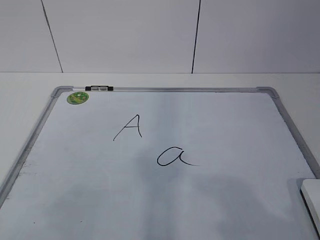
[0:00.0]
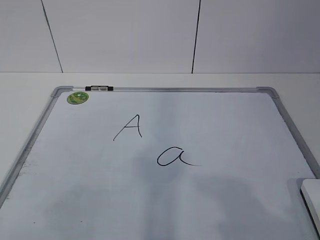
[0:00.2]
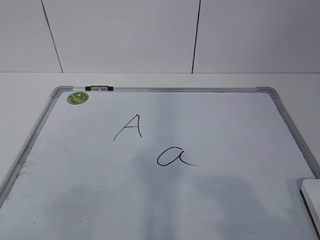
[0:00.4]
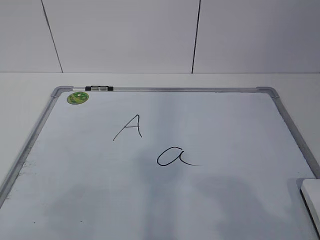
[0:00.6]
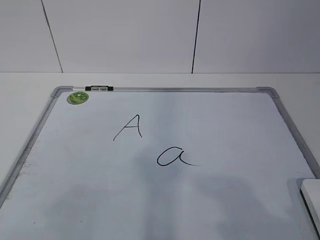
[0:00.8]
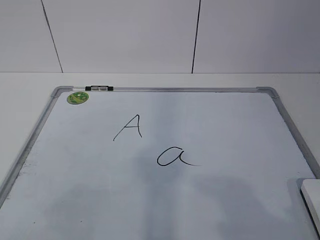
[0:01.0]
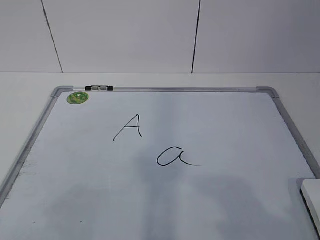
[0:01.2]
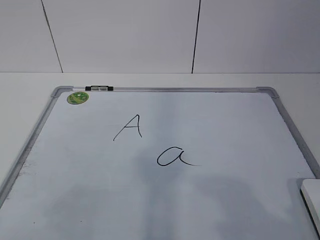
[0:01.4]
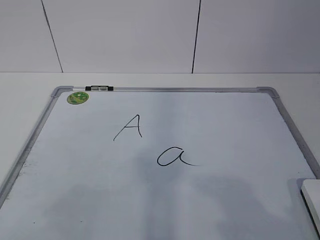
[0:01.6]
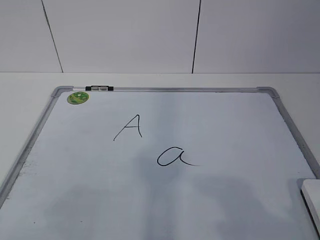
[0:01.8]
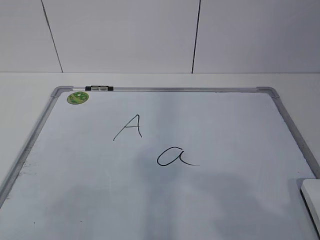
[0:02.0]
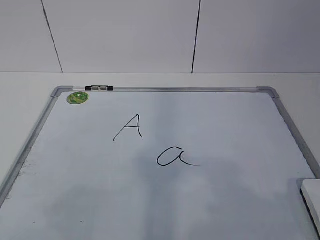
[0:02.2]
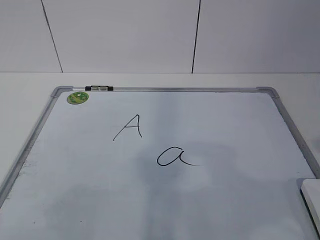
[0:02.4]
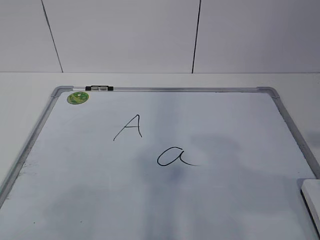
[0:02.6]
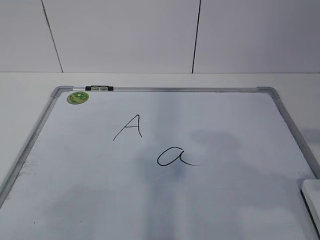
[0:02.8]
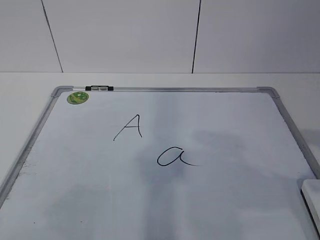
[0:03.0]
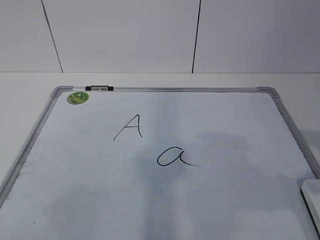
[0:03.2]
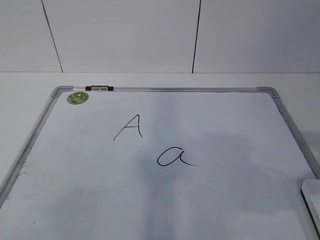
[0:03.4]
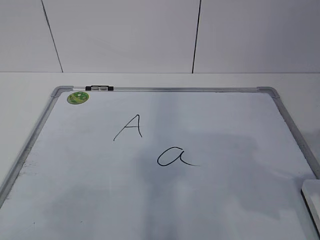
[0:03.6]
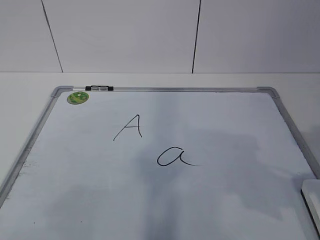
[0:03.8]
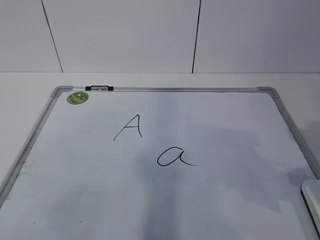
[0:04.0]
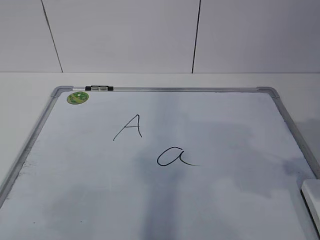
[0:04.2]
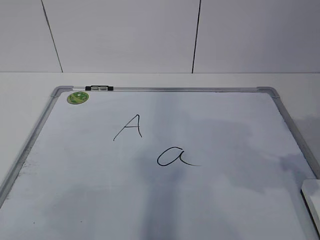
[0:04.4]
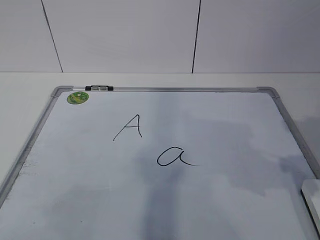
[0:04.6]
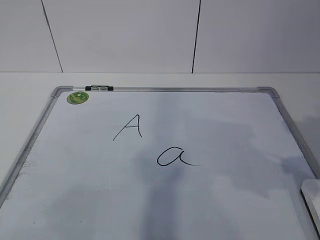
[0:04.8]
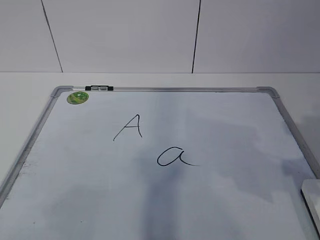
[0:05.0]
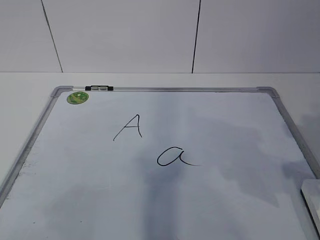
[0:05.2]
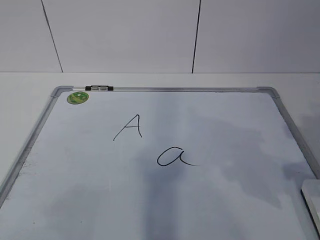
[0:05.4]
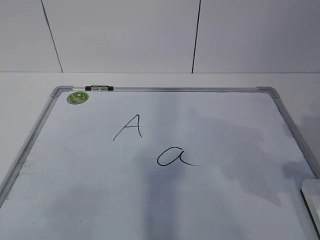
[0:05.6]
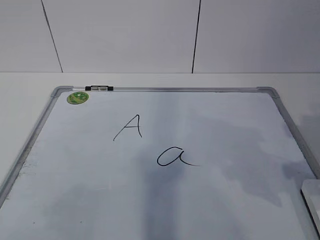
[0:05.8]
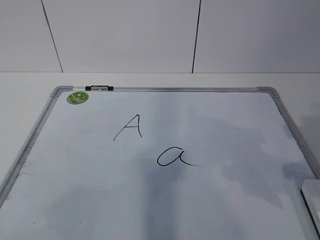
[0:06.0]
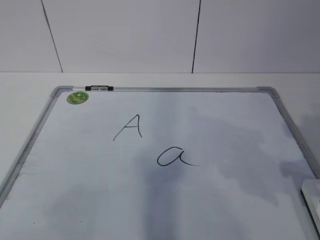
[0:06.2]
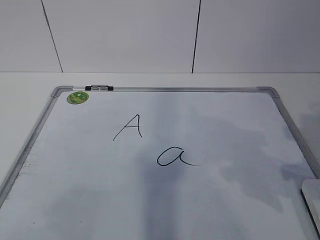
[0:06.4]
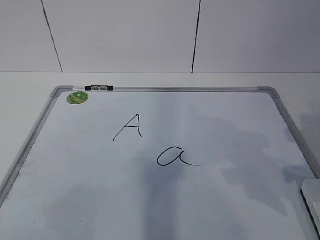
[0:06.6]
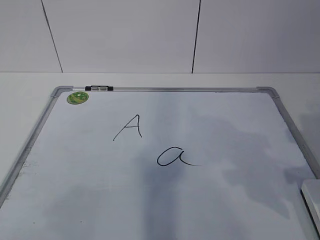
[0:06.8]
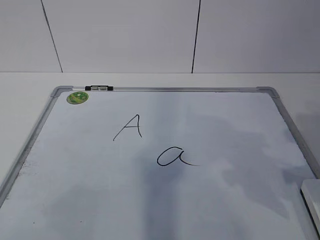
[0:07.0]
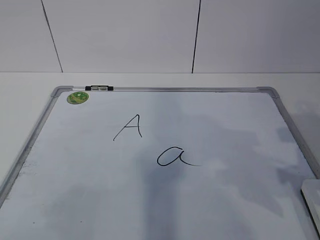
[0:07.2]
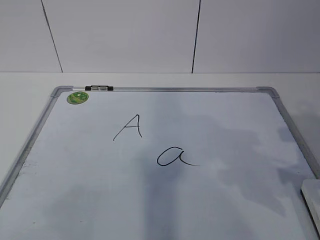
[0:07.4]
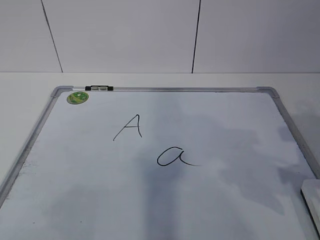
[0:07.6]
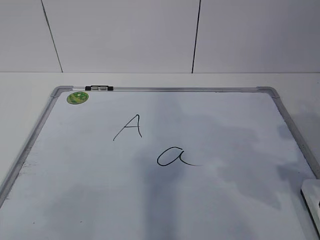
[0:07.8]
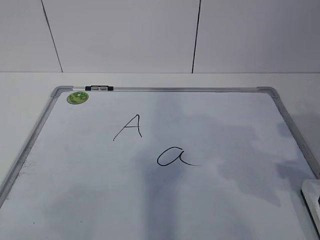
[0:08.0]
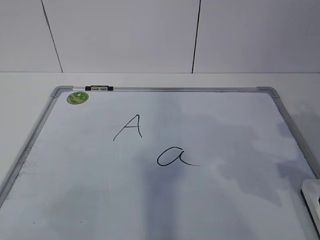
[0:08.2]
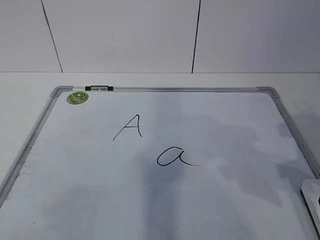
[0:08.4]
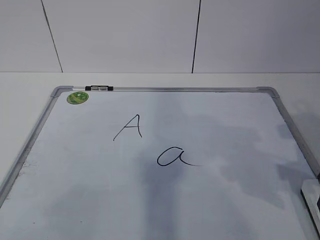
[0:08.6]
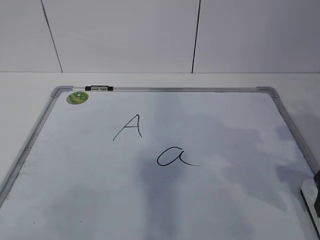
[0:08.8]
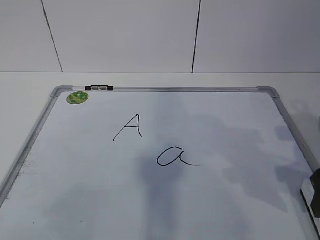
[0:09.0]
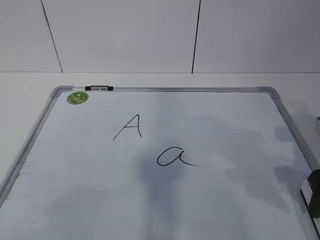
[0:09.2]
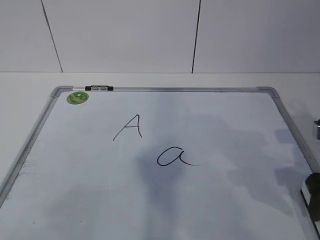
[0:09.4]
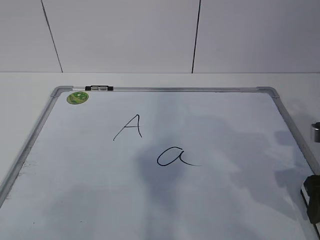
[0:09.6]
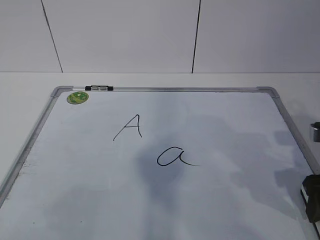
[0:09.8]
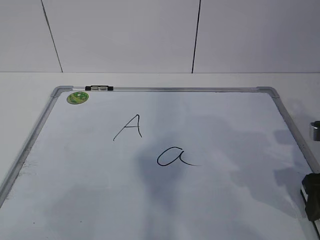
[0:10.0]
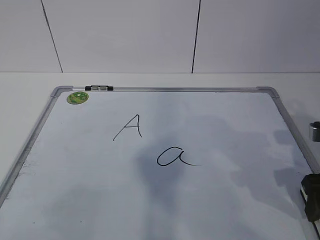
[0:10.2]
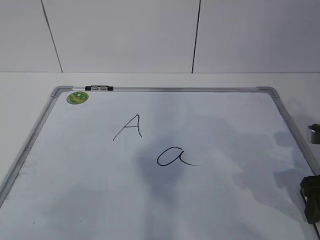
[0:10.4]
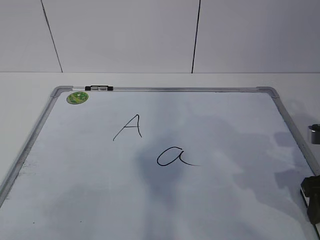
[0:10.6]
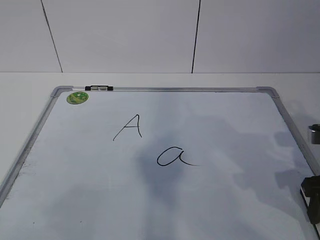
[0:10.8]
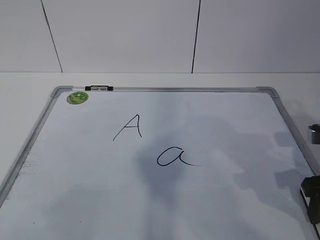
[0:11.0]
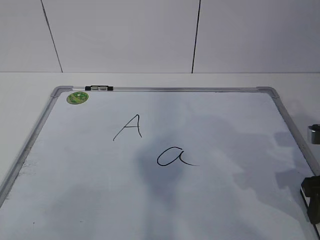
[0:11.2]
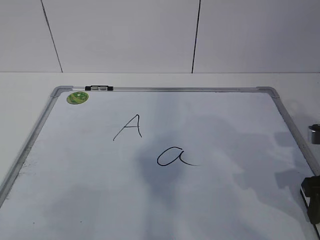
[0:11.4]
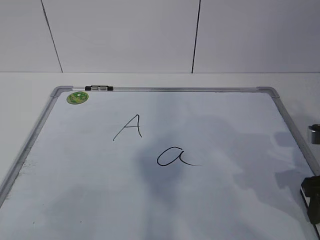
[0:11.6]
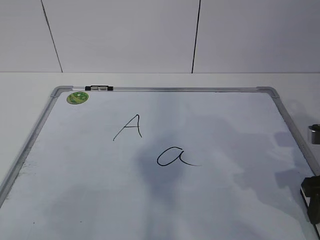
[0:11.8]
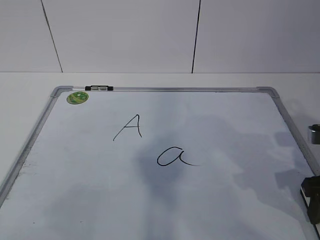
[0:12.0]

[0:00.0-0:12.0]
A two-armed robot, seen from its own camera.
Task of the whole recording: pick up the eraser on the blackboard and erase the letter "a".
0:09.0 to 0:10.4: The grippers make only small movements.

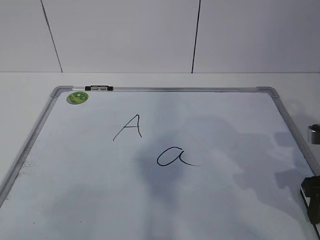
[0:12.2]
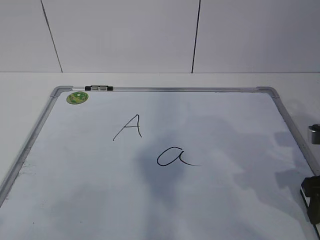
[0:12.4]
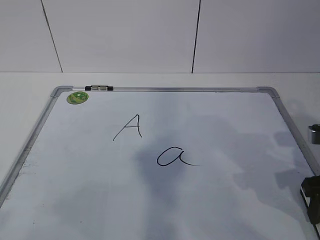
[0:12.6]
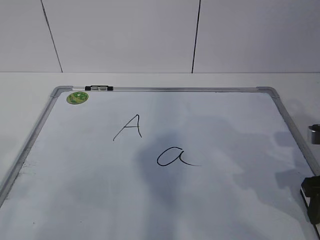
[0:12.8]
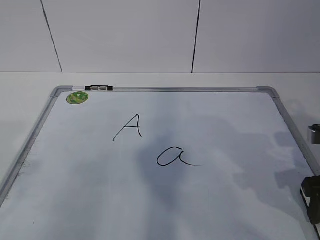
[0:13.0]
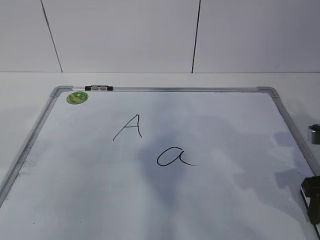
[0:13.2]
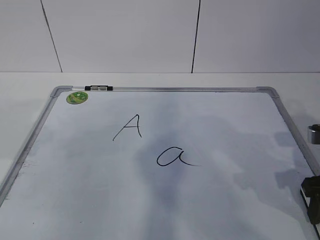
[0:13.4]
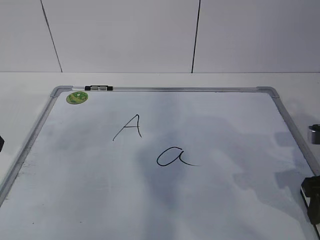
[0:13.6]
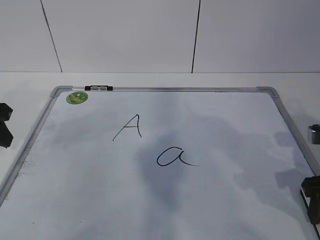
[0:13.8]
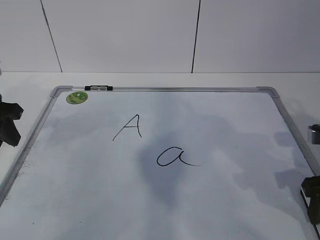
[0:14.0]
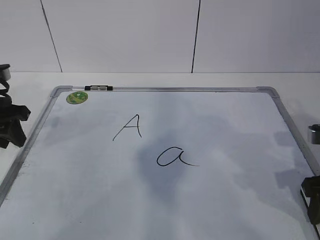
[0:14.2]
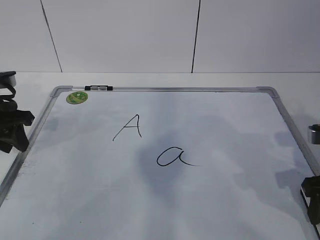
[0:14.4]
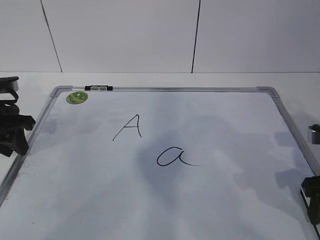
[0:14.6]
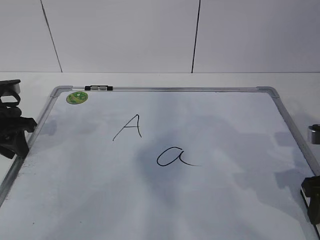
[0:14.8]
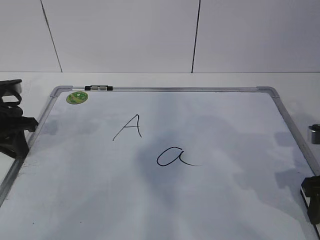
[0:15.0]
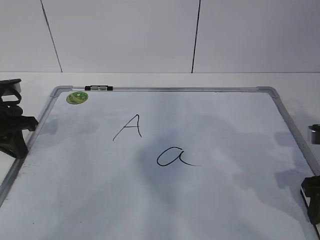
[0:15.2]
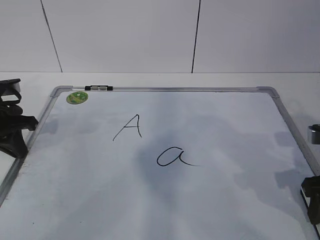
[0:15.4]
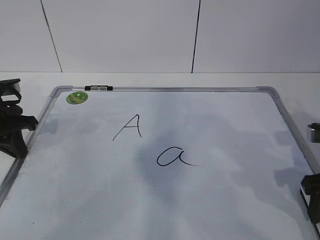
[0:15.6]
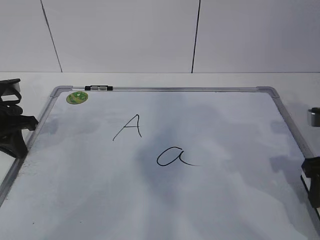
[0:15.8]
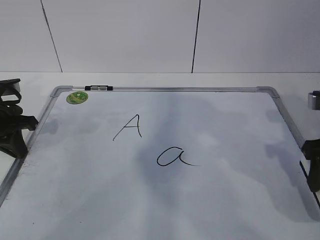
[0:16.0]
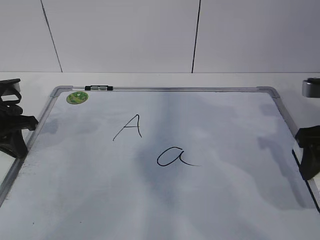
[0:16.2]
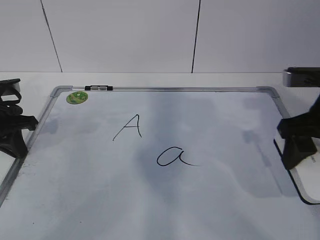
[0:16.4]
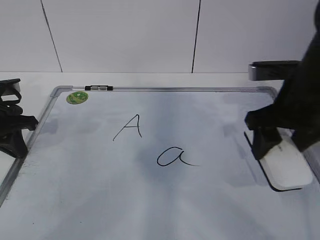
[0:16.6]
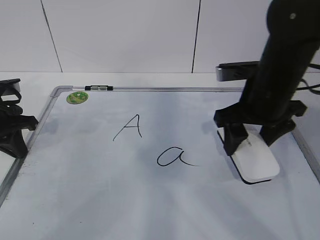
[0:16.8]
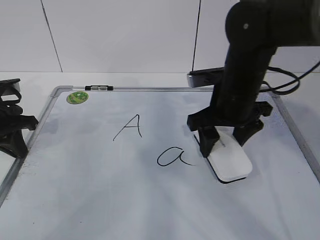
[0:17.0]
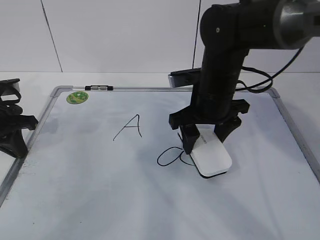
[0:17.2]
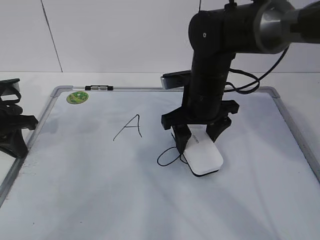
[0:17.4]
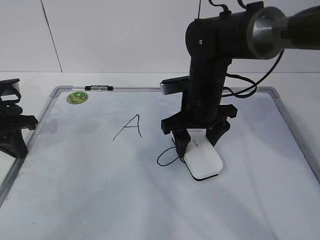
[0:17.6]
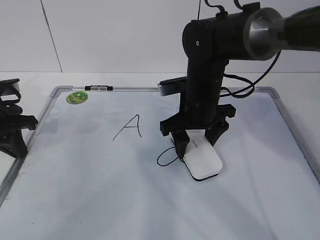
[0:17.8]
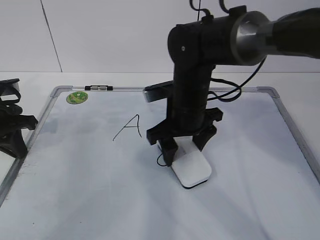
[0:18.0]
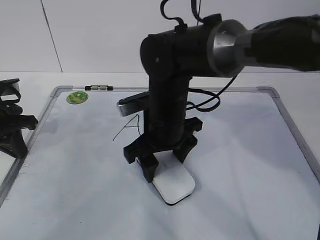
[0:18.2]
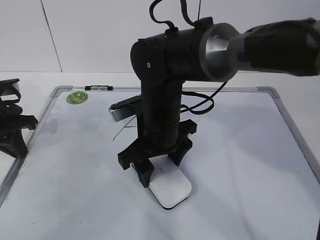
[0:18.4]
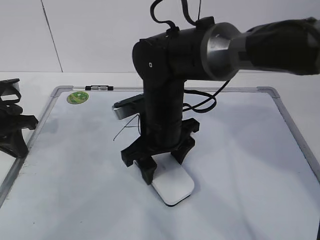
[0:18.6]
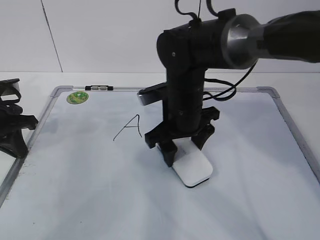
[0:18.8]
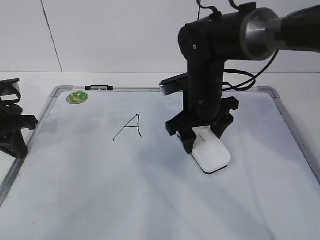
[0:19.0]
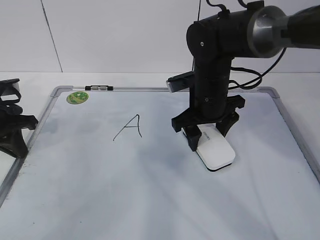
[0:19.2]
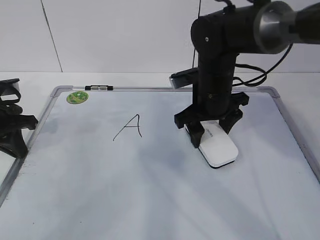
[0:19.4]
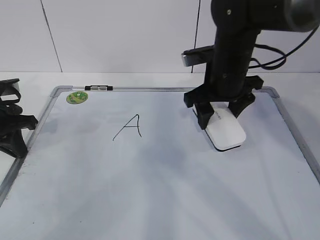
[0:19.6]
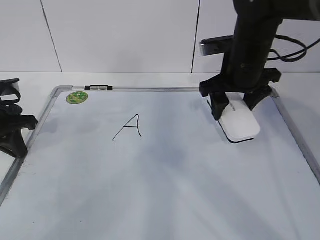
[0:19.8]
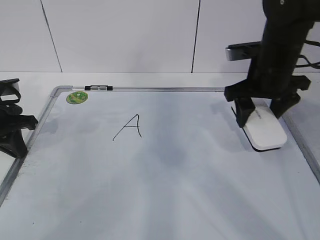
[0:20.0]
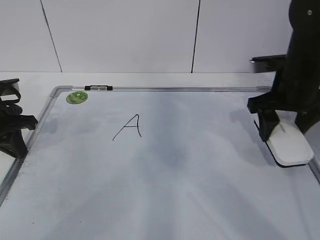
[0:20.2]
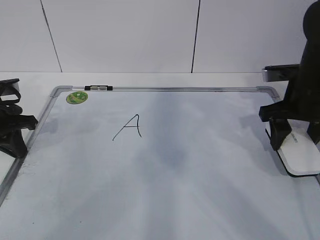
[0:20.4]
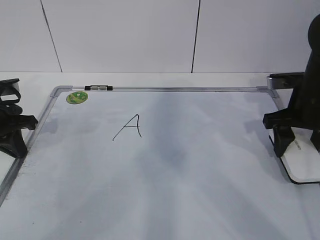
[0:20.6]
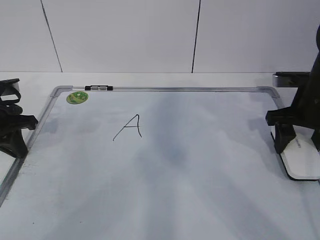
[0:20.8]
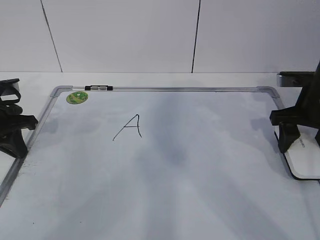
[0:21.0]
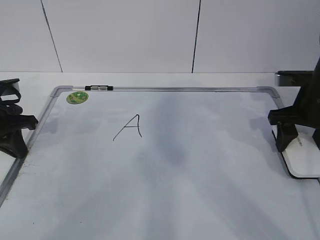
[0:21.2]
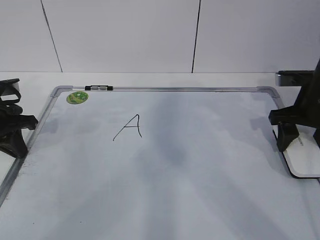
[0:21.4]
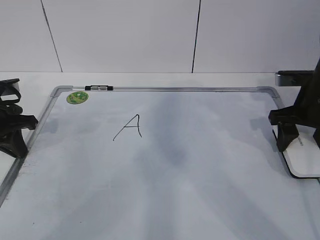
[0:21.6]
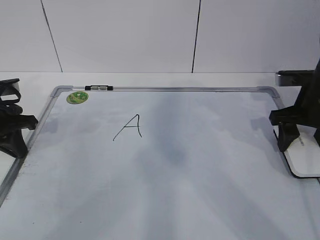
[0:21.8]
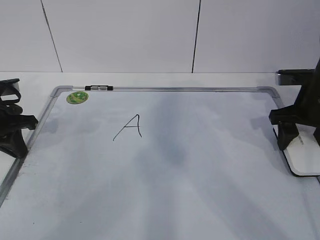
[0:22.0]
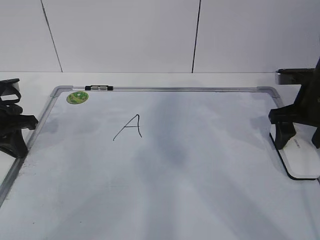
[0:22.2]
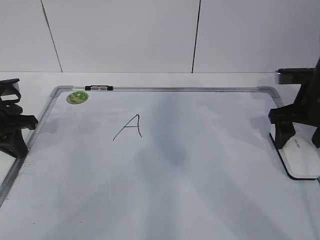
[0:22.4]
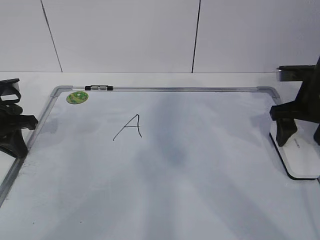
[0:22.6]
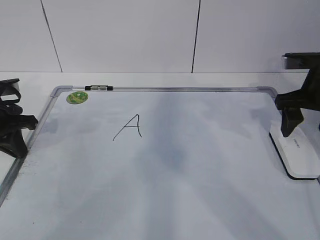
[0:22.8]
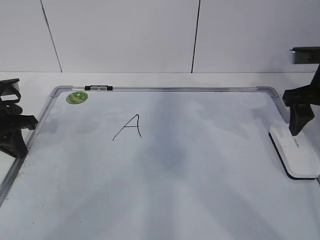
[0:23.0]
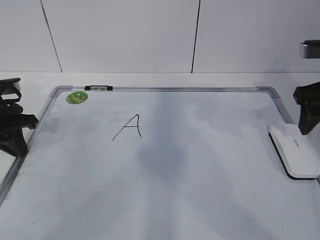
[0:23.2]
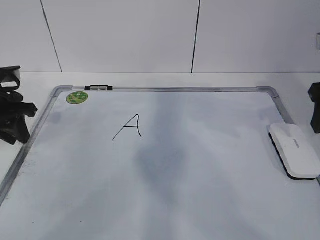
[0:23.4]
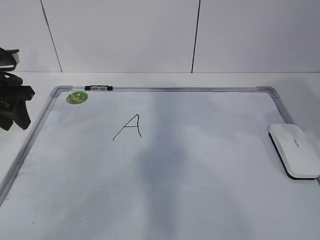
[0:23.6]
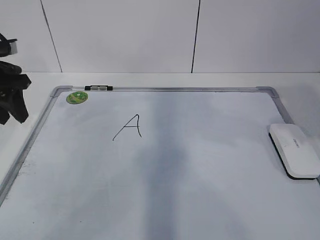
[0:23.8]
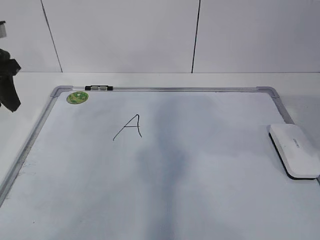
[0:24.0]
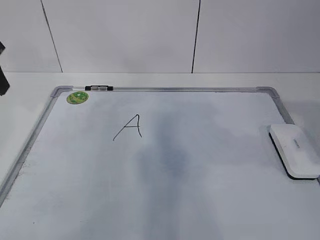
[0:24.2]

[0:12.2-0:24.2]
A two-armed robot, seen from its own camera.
Task of the whole recording: pick up the eraser on the blackboard and erase the letter "a".
Step, 0:16.2 to 0:18.2: Put down the eraser with your right hand.
0:12.2 to 0:13.8: The left gripper heads forward, covering roughly 30 cm.
0:13.8 to 0:15.2: The left gripper shifts roughly 10 cm downward and forward, and closes.
0:15.2 to 0:16.6: The right gripper is displaced upward, to the left and forward by about 10 cm.
0:16.6 to 0:18.2: The right gripper goes approximately 20 cm to the left.
0:18.2 to 0:19.8: The right gripper is displaced to the right, forward and upward by about 15 cm.
0:19.8 to 0:21.2: The right gripper goes approximately 10 cm to the right.
0:21.2 to 0:22.6: The right gripper opens up.
0:22.6 to 0:24.2: The right gripper is displaced backward and upward by approximately 25 cm, and closes. Meanwhile the left gripper goes some 15 cm upward, and opens up.
